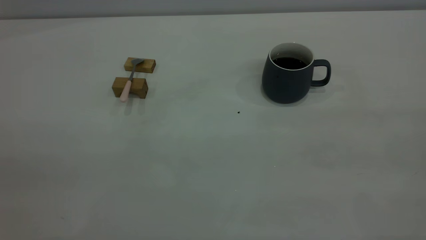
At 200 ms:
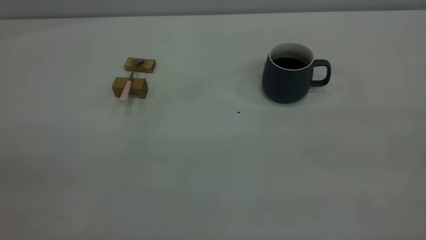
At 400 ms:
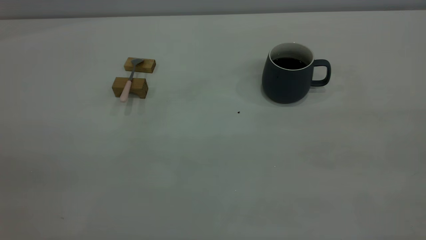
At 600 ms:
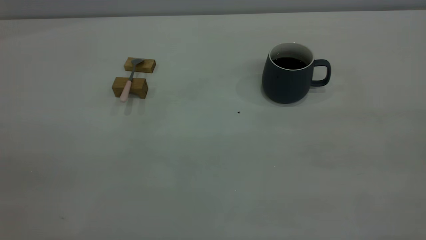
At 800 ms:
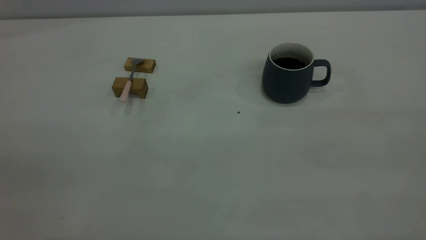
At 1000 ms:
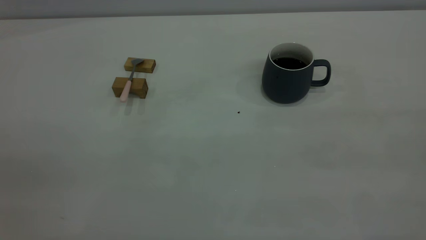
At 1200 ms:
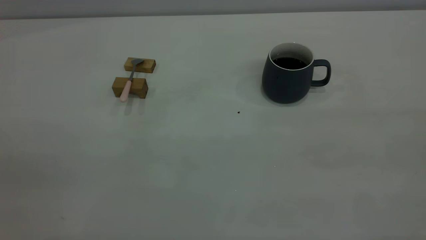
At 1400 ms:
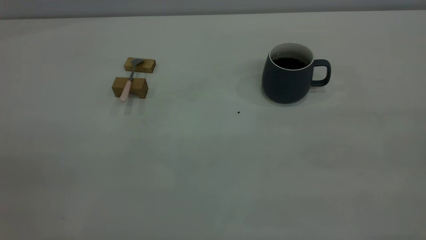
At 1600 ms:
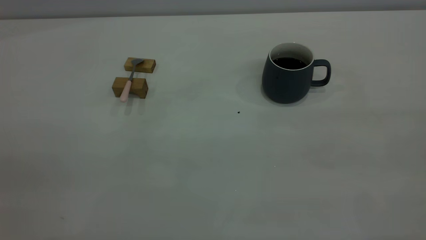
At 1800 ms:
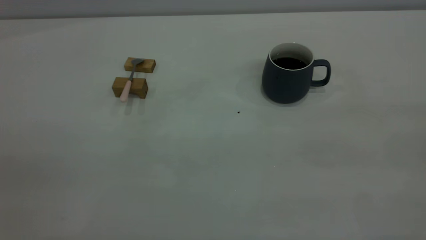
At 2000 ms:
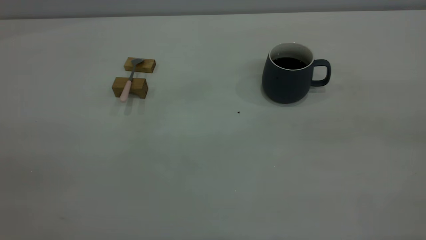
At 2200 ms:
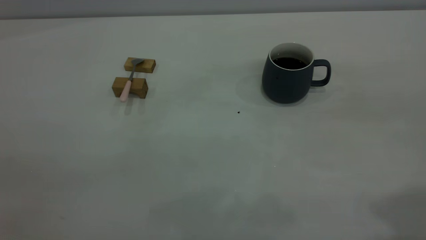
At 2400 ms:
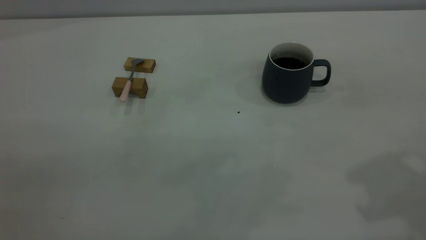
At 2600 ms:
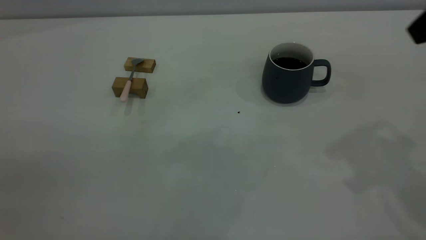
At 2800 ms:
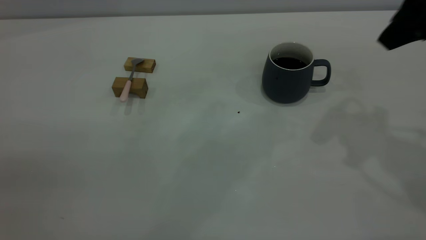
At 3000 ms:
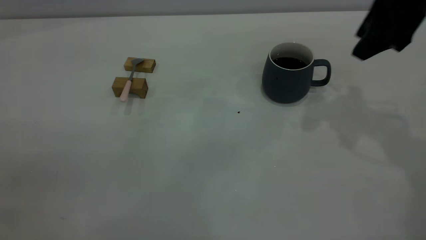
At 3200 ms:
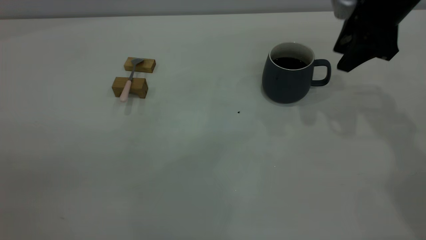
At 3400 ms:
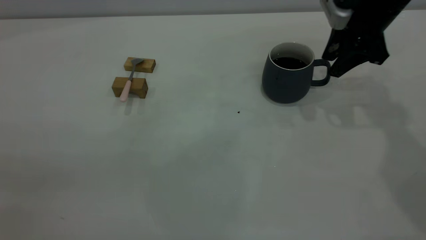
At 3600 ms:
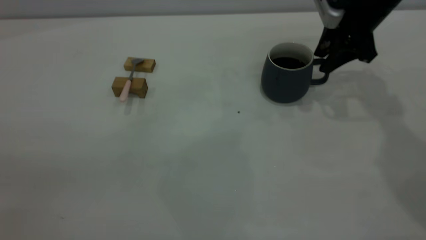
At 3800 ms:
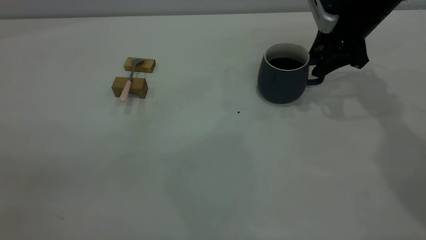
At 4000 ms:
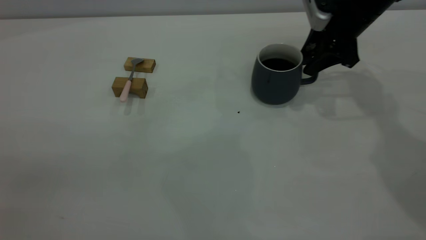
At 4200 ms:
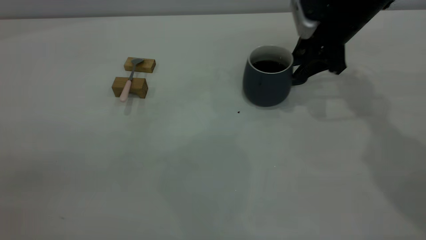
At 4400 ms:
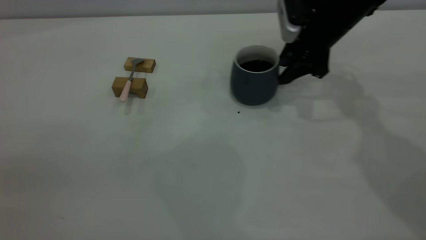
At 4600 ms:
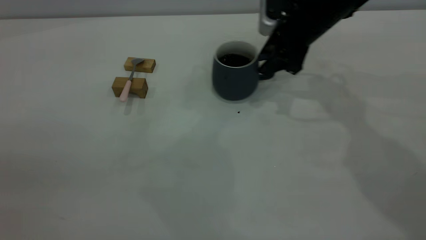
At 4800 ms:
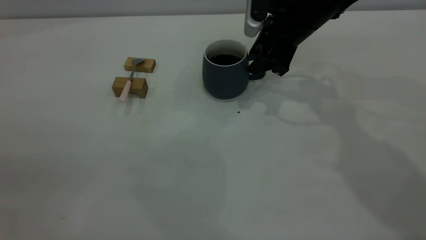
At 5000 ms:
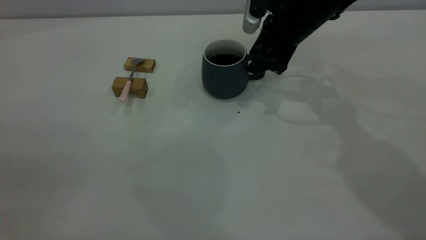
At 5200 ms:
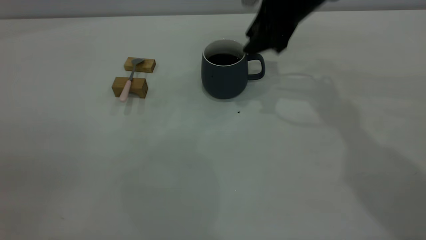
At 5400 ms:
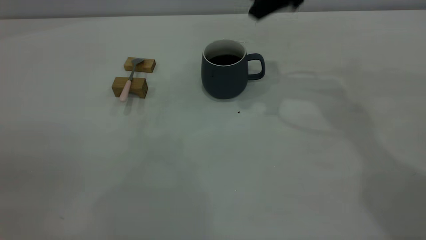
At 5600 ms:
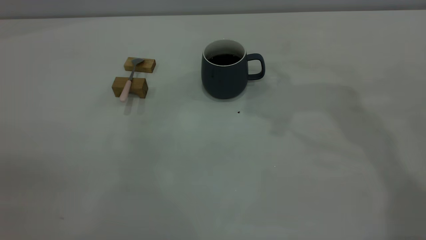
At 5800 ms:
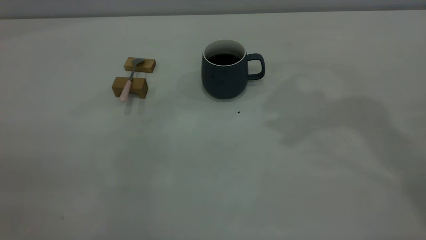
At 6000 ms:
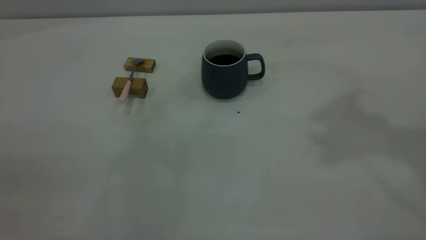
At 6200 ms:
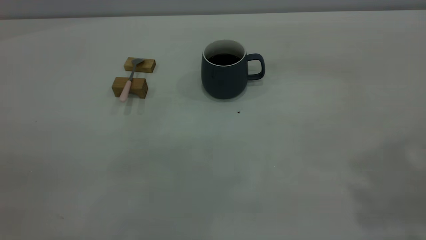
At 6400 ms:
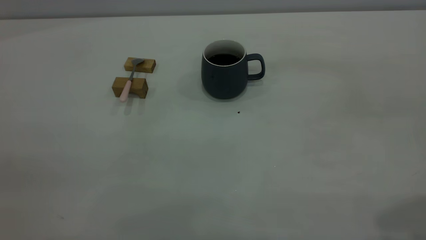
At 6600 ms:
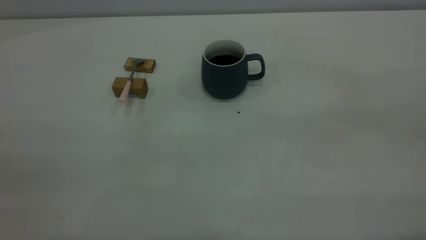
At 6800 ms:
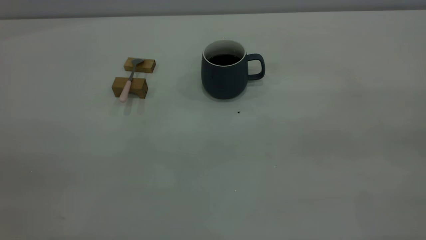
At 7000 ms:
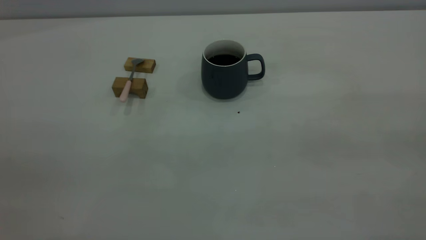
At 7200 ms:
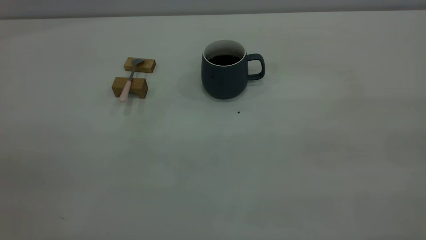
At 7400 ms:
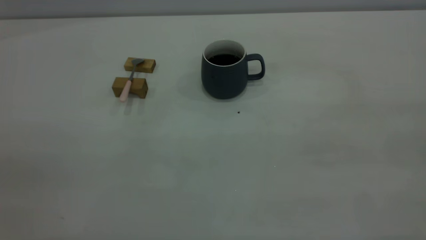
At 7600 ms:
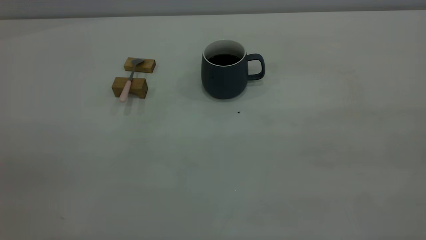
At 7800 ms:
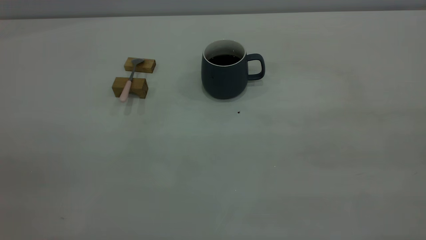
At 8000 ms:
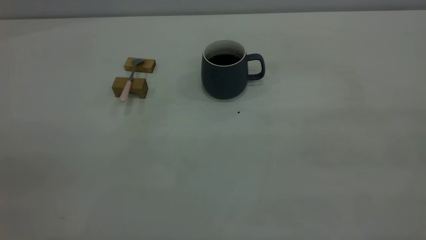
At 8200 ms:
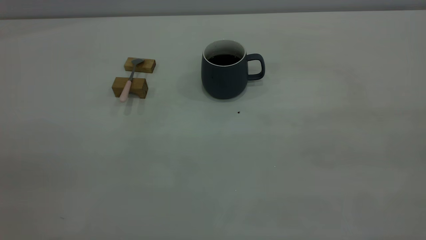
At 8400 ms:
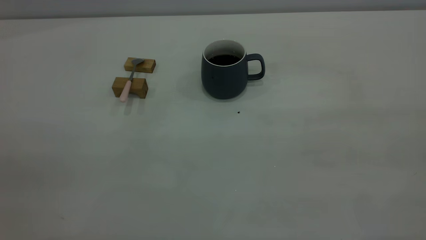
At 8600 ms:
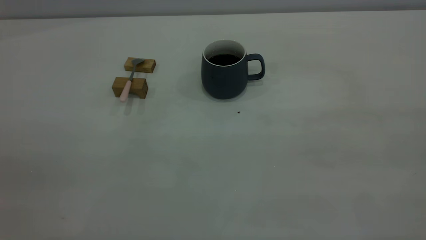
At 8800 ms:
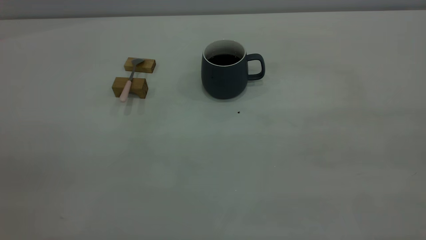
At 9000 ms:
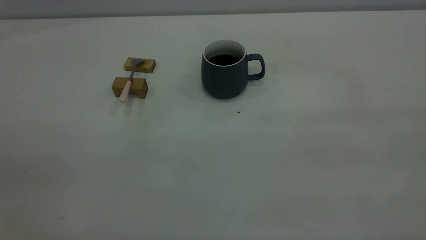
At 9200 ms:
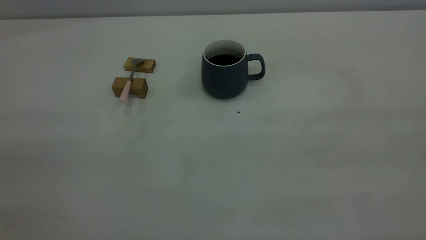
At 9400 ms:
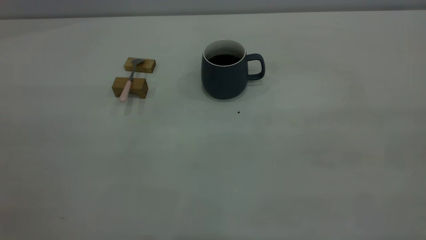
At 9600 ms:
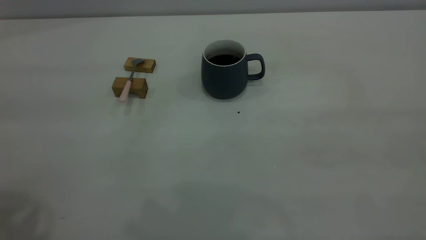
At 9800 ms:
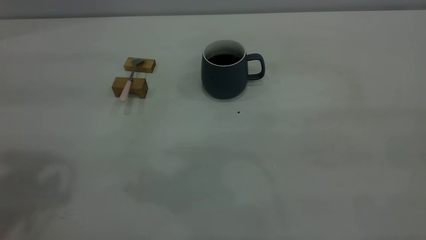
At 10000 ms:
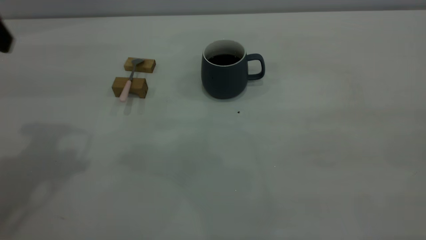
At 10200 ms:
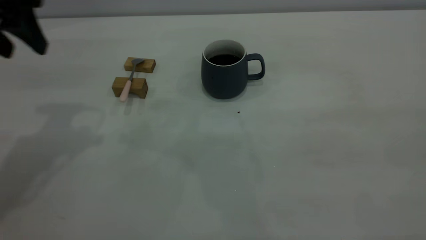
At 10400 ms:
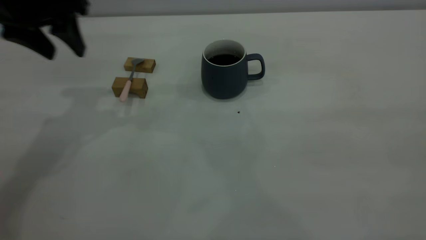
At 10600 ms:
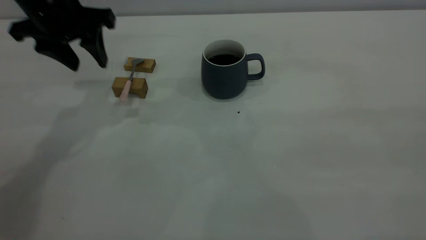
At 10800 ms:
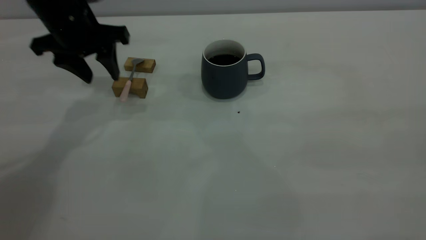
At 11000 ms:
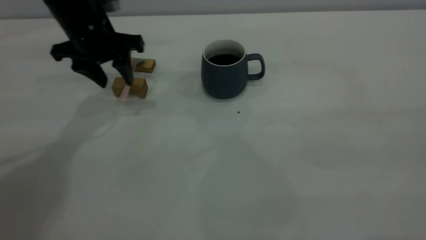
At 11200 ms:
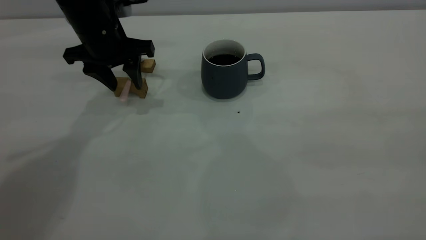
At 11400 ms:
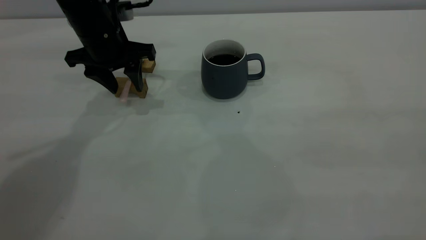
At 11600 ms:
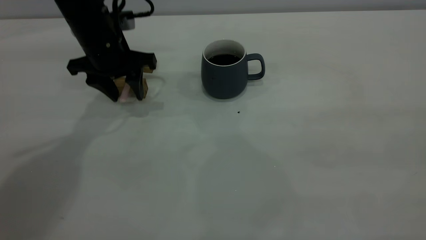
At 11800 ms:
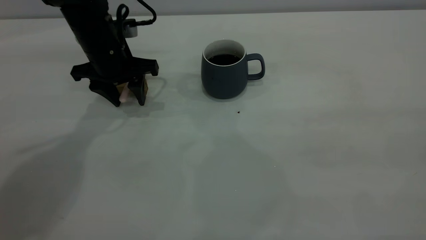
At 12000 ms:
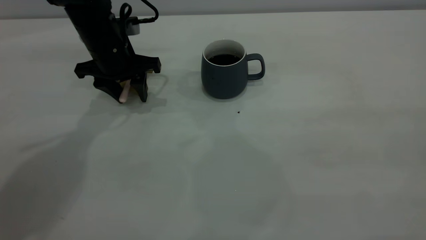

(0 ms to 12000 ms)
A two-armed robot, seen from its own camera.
Step, 0 ms - 5200 ms: Move the cup with coffee to the center of view.
0 ms - 1600 ms: Both grippers stay put.
1600 ms - 3000 ms: The right gripper goes about 35 cm forward.
3000 ms - 4400 ms: The right gripper heads downward, forward and to the left, covering approximately 15 cm.
4400 ms - 6000 ms: The right gripper travels upward and backward by roughly 35 cm.
7600 ms - 9000 ms: Both grippers stay about where they are.
9000 ms - 10400 ms: The left gripper shifts roughly 35 cm forward, and opens.
10400 ms - 12000 ms: The left gripper shifts some 15 cm downward and forward.

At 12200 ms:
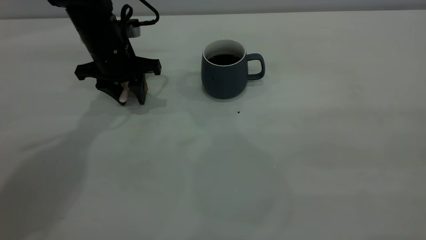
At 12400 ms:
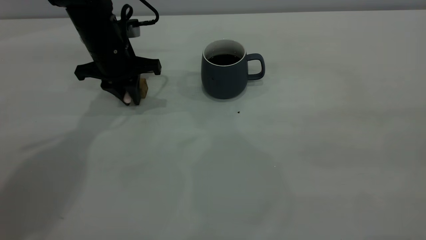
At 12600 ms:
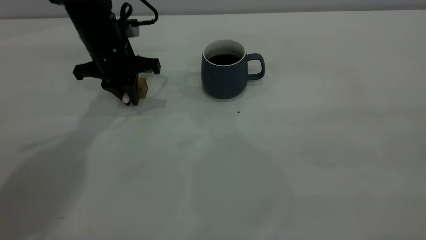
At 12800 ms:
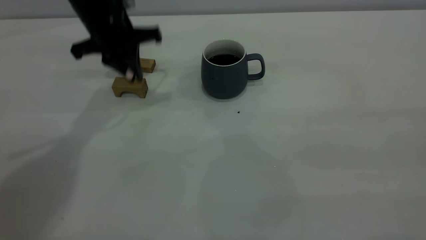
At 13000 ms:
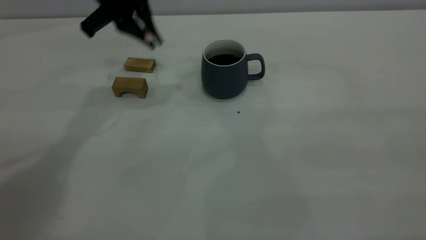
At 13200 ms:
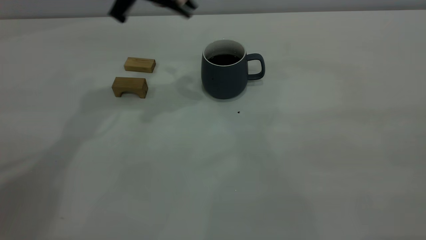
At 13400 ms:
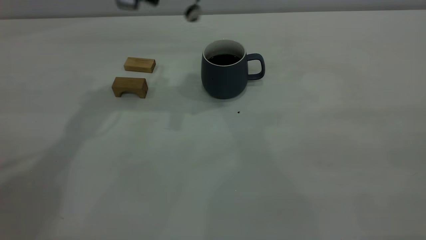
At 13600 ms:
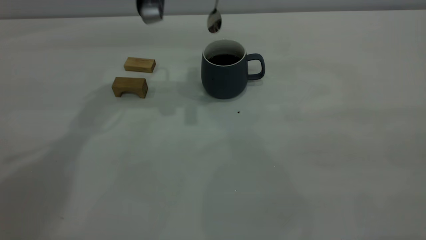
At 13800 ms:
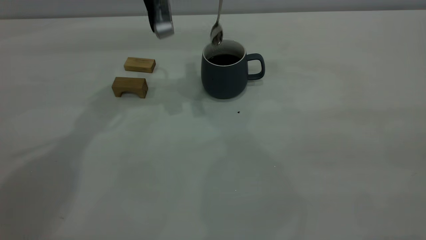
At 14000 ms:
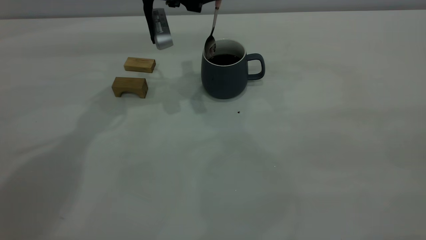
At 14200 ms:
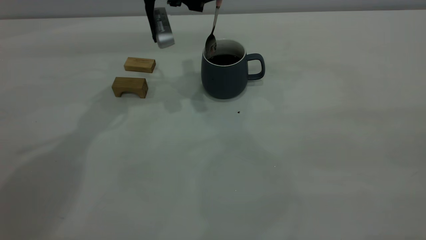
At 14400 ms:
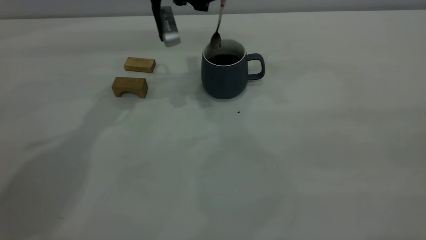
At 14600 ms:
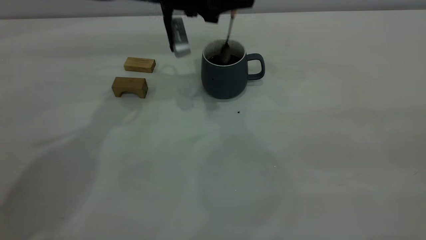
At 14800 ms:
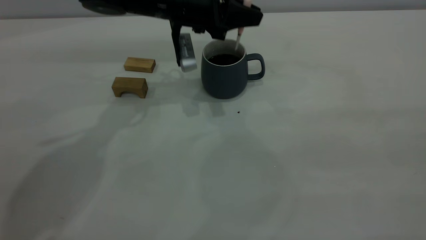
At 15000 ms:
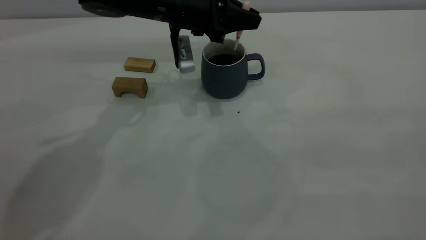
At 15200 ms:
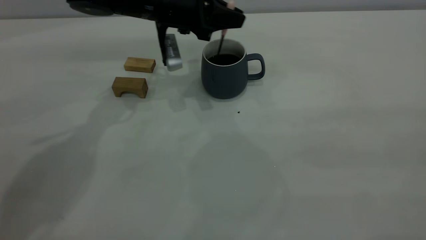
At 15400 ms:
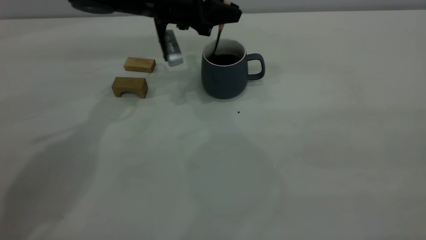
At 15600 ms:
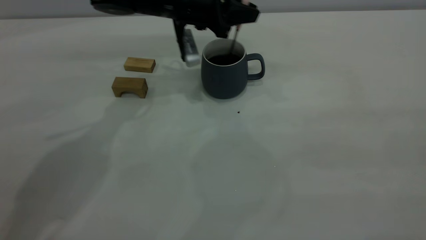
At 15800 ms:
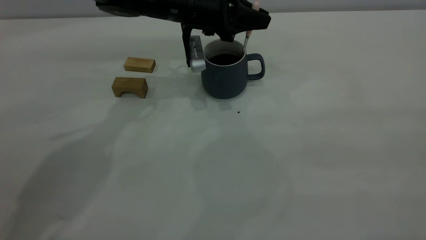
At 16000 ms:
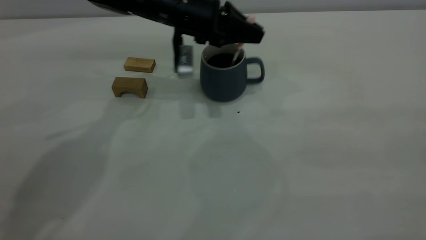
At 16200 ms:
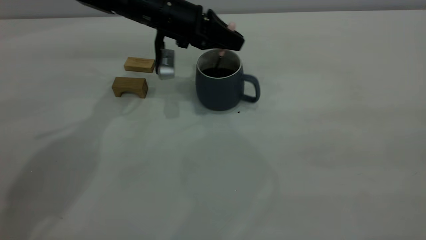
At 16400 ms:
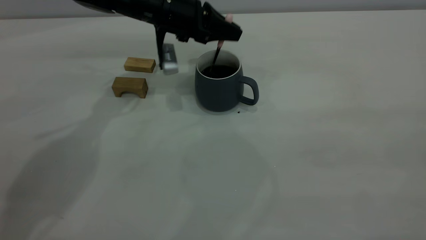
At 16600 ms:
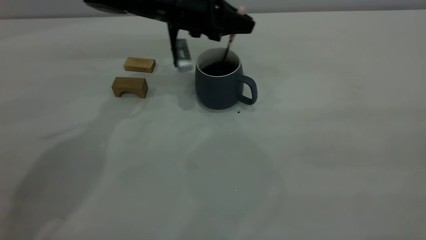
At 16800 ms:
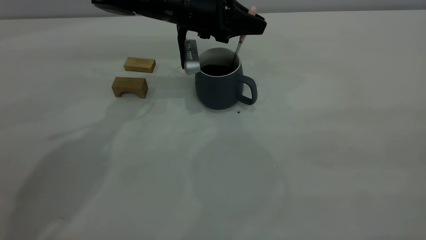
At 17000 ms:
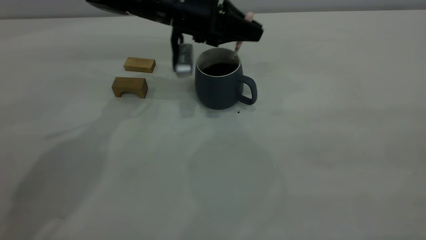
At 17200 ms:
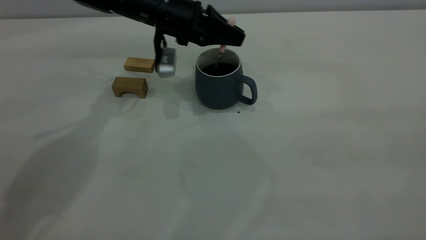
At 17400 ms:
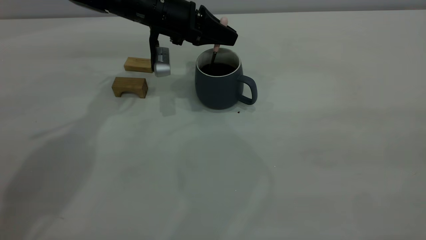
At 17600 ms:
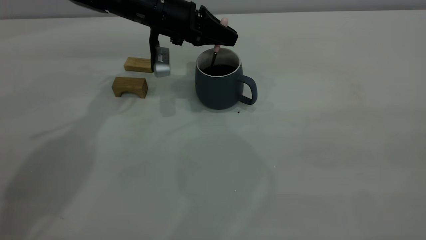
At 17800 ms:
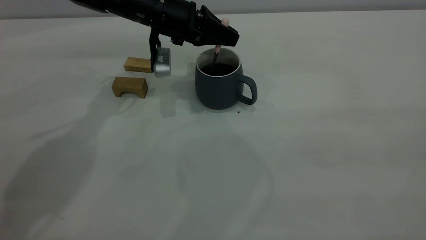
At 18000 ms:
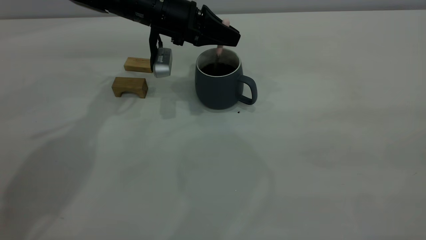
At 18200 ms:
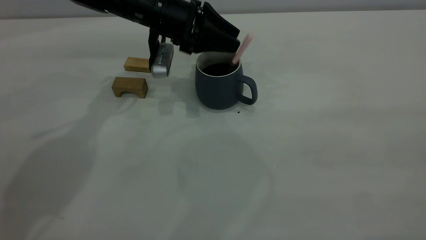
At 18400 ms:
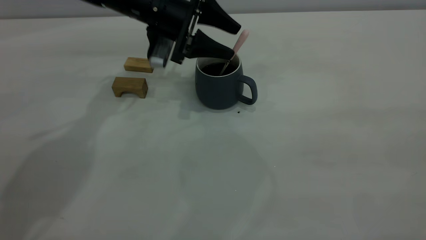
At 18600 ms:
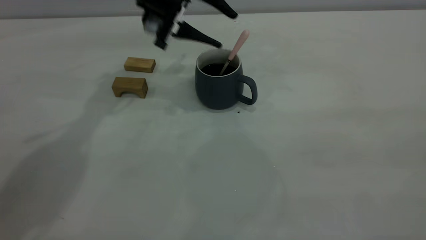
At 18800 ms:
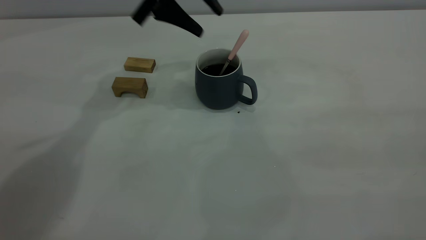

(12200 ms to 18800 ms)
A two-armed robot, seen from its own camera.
Step, 13000 ms - 18600 ms: Stir the coffee in the cup.
12200 ms - 13800 ms: The left gripper heads upward and to the right, covering approximately 10 cm, and closes.
13800 ms - 15400 ms: The left gripper moves downward, roughly 5 cm.
15400 ms - 17200 ms: There are only small adjustments of the grippers.
17200 ms - 18800 ms: The left gripper heads upward, covering approximately 10 cm, and opens.
